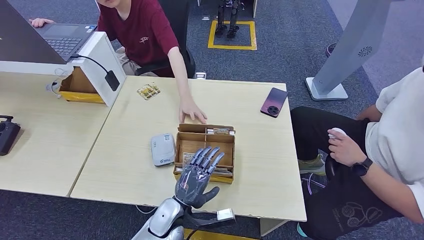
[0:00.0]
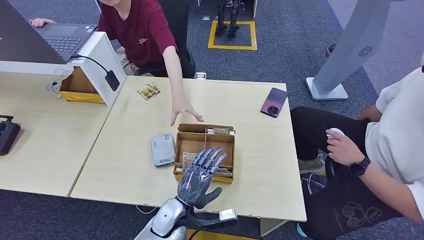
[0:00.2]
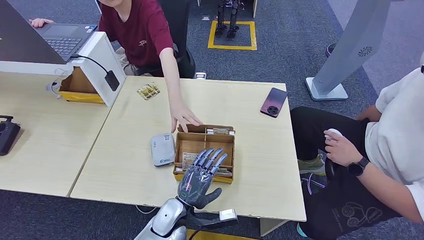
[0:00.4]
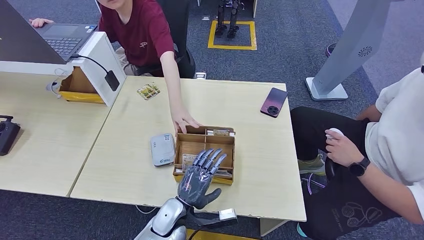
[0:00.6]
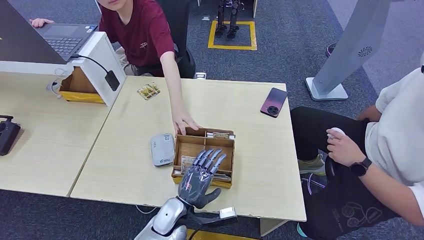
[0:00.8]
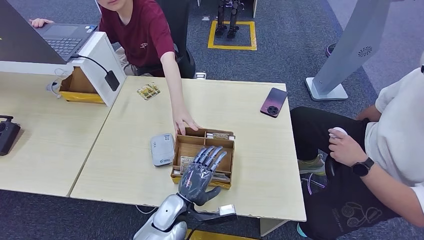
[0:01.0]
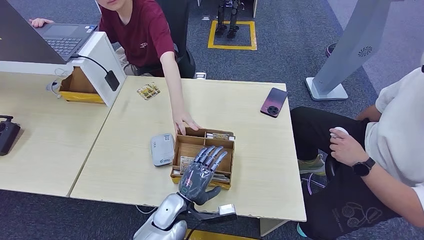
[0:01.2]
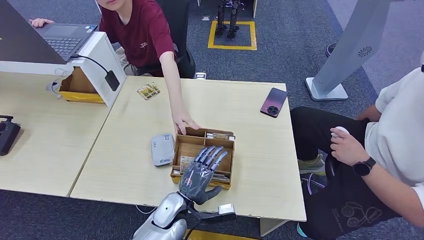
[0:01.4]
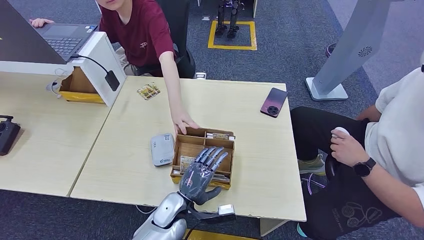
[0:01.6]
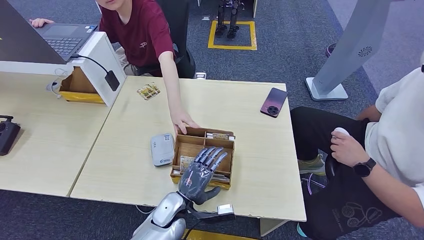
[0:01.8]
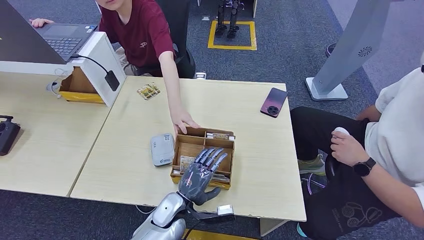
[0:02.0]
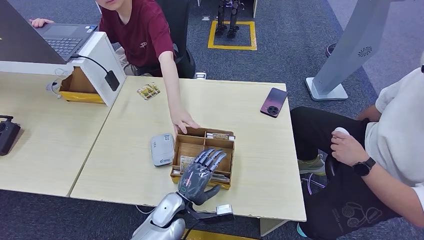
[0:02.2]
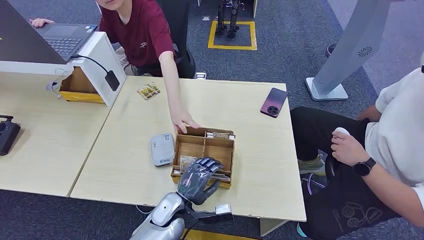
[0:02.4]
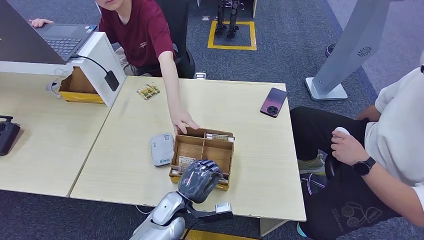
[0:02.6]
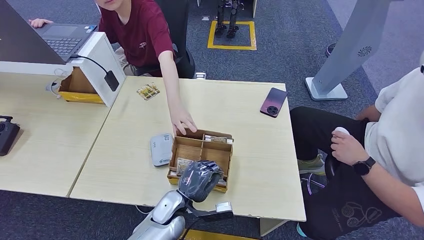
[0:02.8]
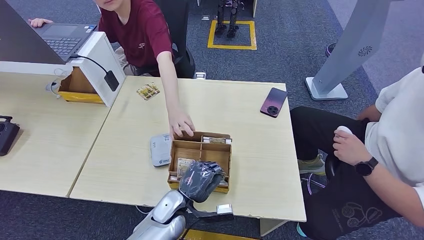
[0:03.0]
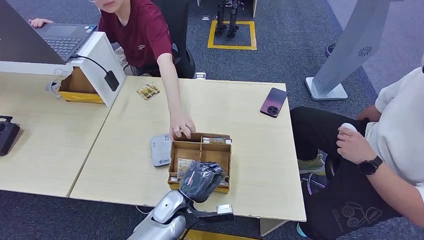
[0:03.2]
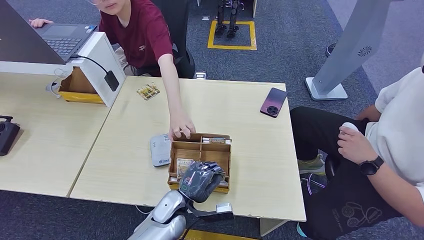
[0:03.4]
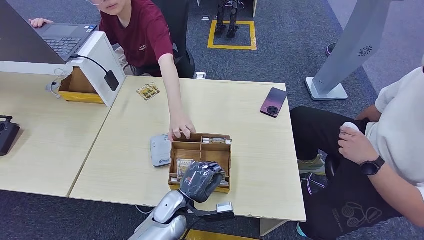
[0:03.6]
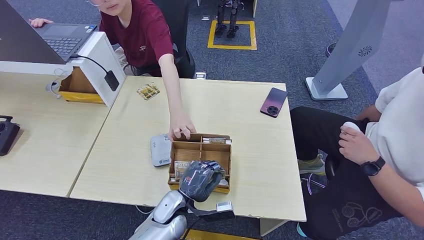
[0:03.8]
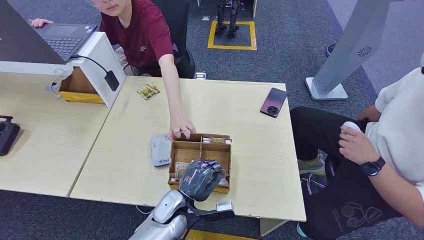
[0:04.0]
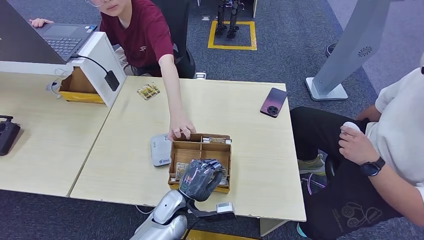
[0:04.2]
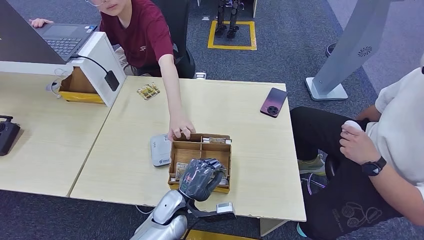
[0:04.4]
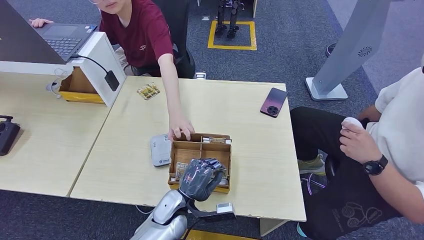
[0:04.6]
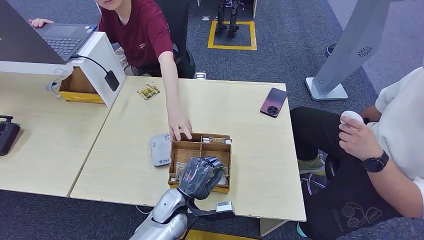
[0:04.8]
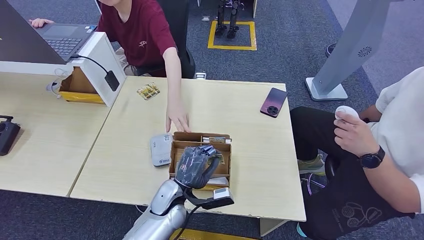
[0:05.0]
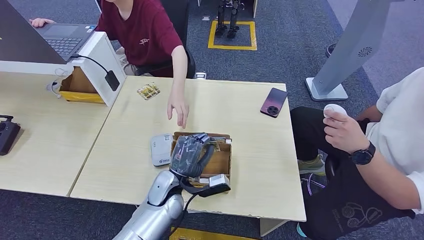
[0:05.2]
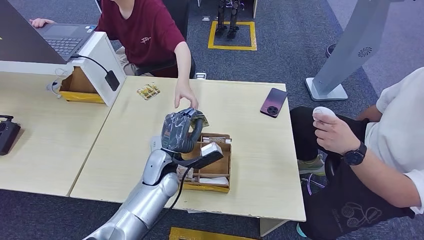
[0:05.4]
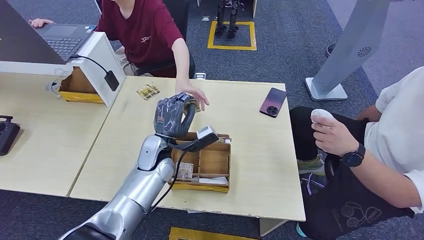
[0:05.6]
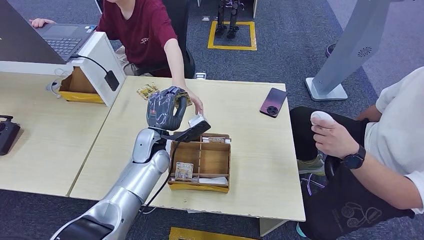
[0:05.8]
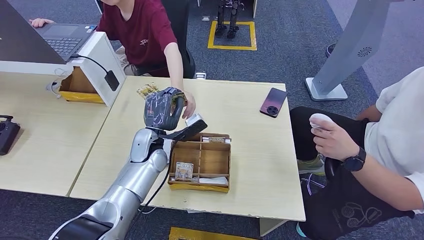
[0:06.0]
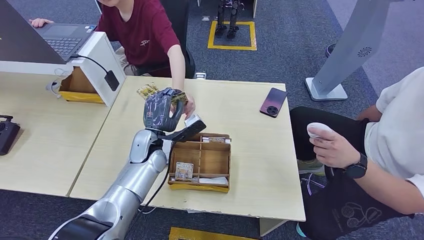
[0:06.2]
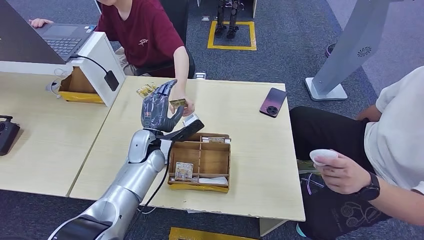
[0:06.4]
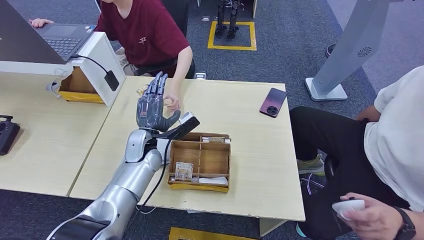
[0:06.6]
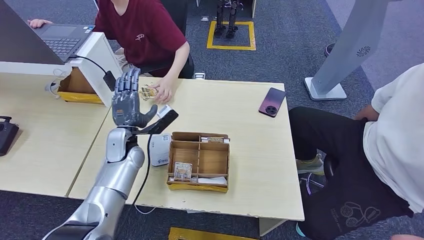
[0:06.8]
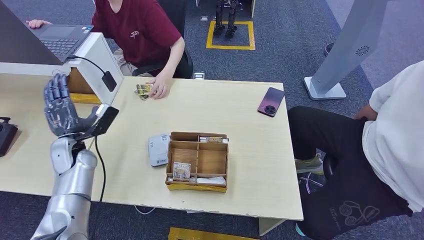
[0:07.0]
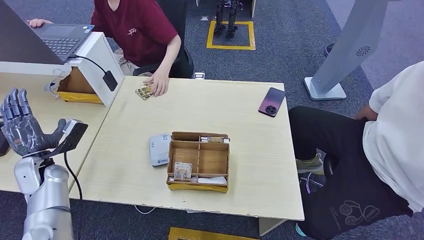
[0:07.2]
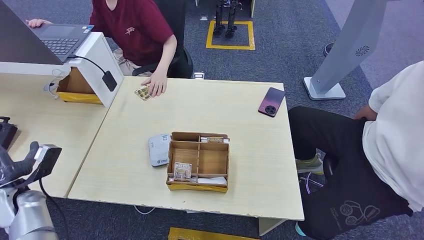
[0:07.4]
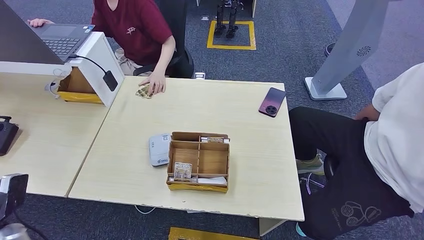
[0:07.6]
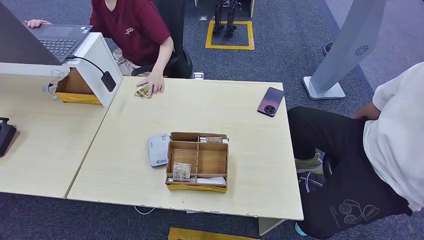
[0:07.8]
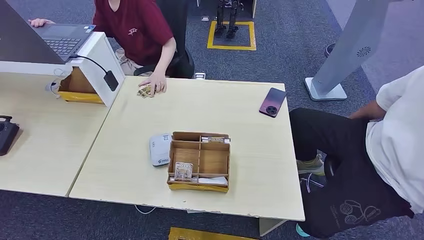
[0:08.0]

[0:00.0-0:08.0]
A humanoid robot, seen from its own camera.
Step, 0:00.0 to 0:03.2: Pick up the room key from the key card box.
Step, 0:03.8 to 0:07.8: Hand the room key to the person.
0:00.0 to 0:01.6: The hands stay close to where they were, moving slightly.
0:01.6 to 0:03.2: Both hands stay about where they are.
0:03.2 to 0:04.8: The hands move only a little.
0:04.8 to 0:06.4: The left hand travels forward, upward and to the left by some 20 cm.
0:06.4 to 0:08.0: The left hand moves to the left, backward and downward, about 50 cm.
